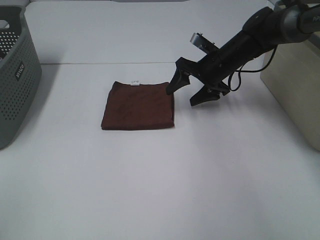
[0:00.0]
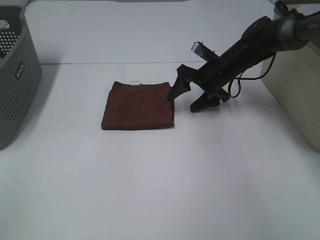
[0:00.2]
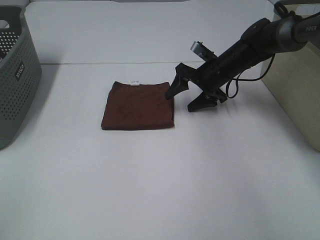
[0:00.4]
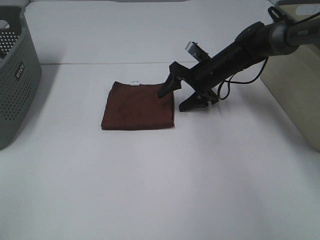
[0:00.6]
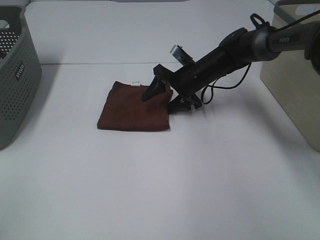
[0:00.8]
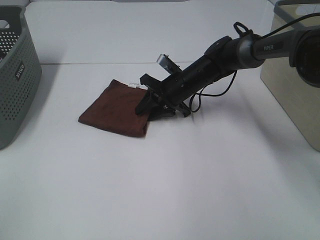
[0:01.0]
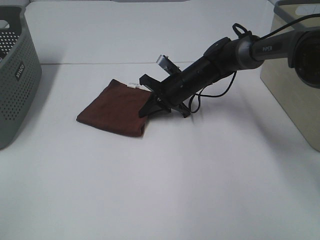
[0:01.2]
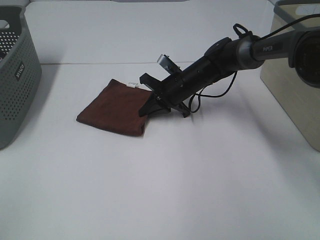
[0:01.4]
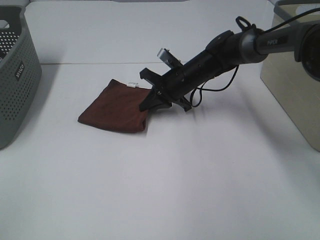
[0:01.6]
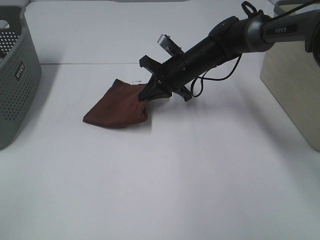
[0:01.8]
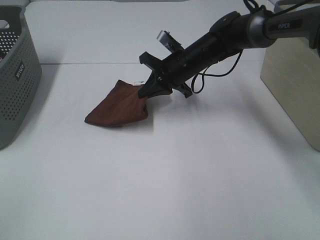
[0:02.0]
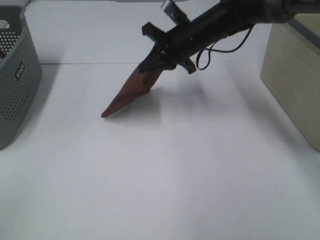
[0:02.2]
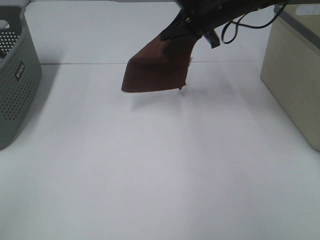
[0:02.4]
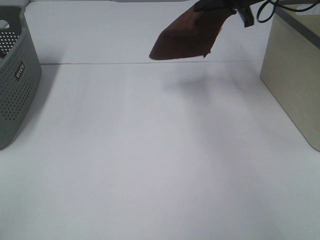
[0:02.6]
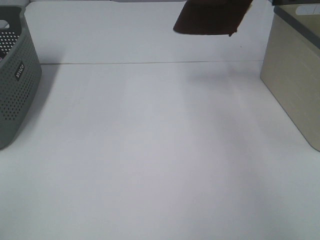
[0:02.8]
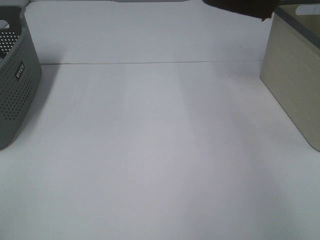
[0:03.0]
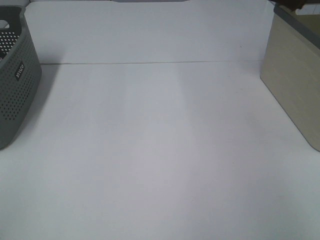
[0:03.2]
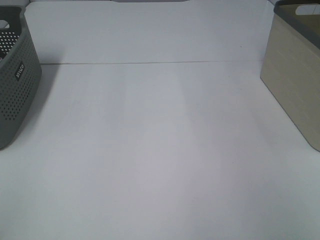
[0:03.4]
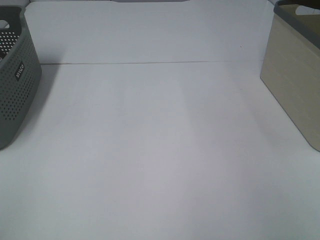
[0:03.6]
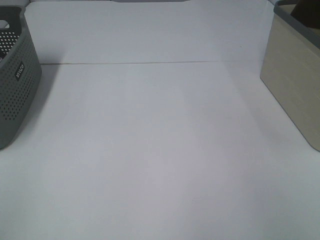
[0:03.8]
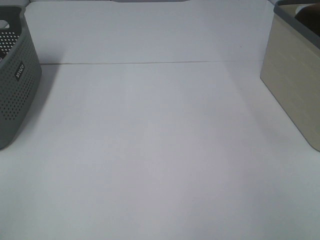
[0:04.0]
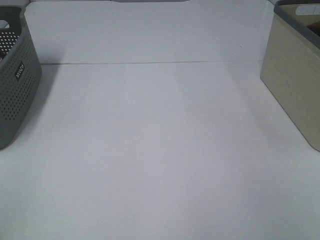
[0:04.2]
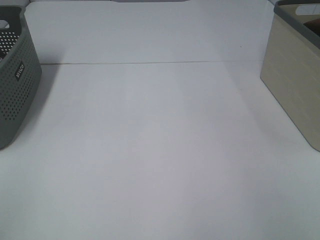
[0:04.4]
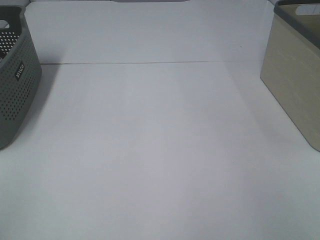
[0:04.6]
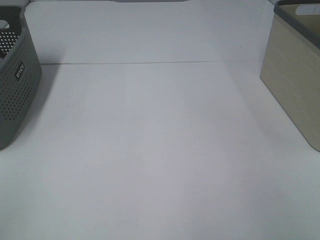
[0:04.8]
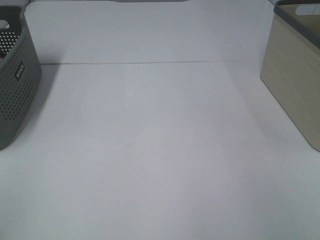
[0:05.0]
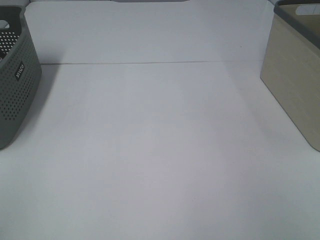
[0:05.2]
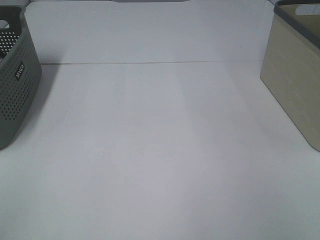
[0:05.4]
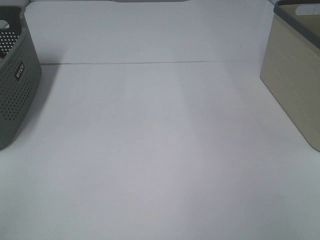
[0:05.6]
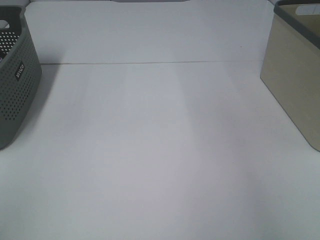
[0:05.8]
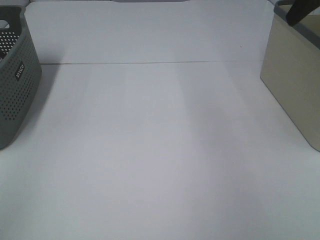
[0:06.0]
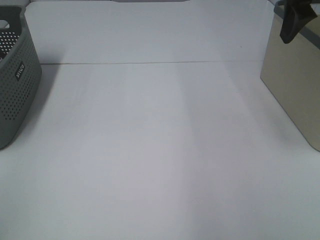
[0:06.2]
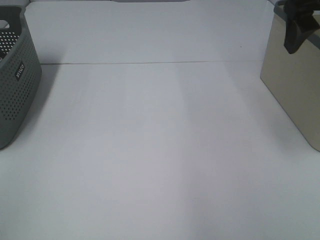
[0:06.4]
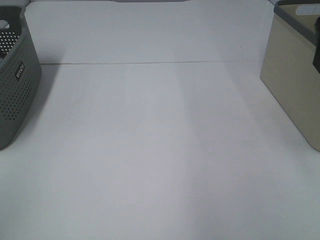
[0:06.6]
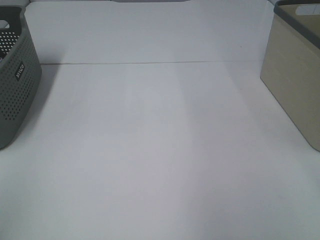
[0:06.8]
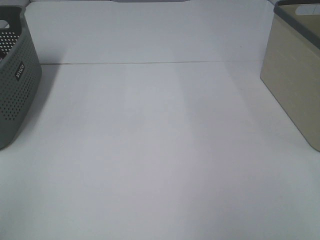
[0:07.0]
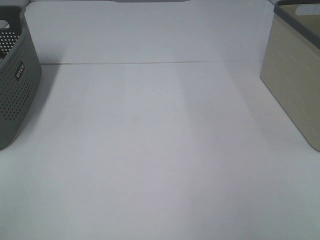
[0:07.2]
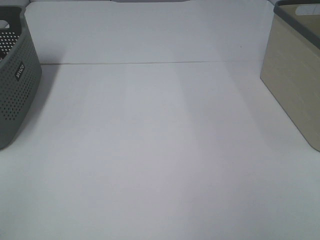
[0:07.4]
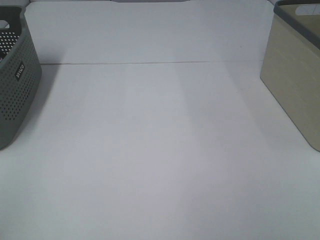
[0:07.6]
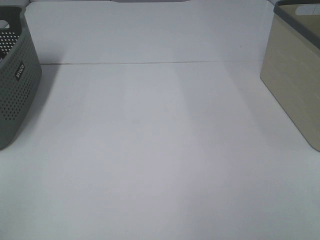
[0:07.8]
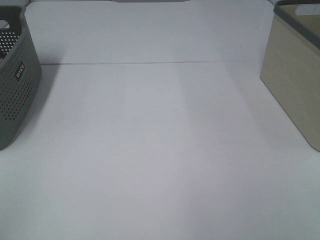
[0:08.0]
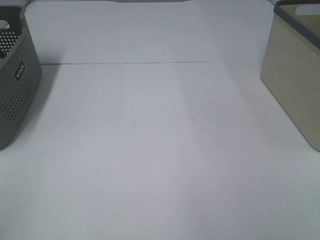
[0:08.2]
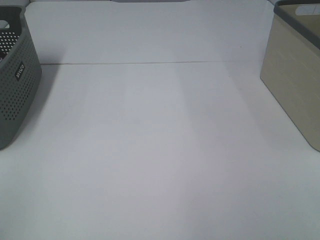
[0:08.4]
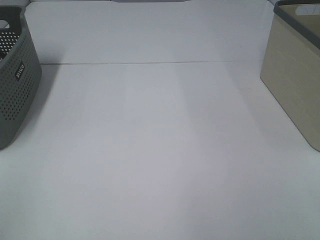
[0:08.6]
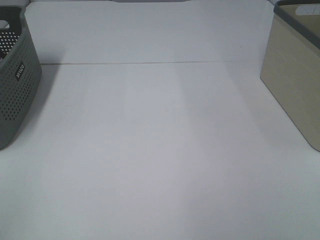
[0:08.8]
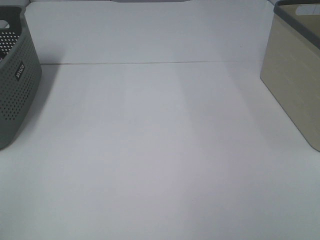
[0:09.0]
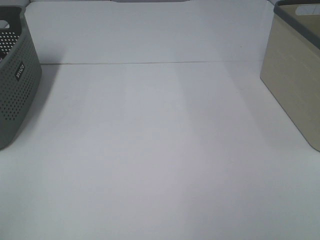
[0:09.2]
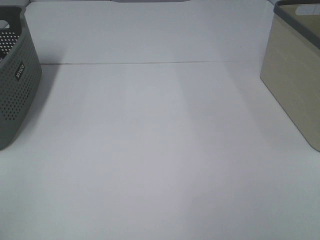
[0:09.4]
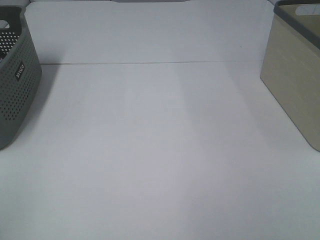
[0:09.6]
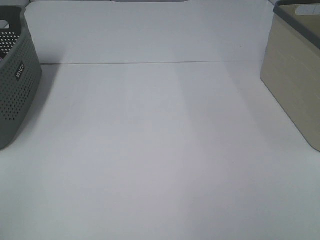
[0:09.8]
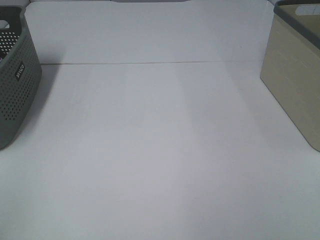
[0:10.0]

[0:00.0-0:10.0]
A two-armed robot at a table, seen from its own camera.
Step, 0:01.4 to 0:04.6: Right hand: place the brown towel in right basket.
0:00.0 to 0:01.4: The right gripper goes some 10 cm to the left, and closes up.
0:01.4 to 0:02.8: The right gripper is displaced upward and to the right by roughly 30 cm.
0:02.8 to 0:04.2: The right gripper travels to the right by roughly 20 cm.
